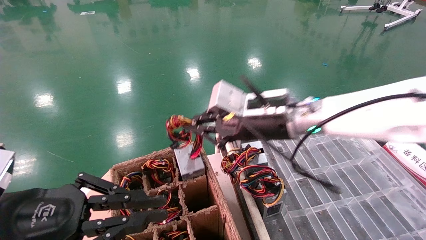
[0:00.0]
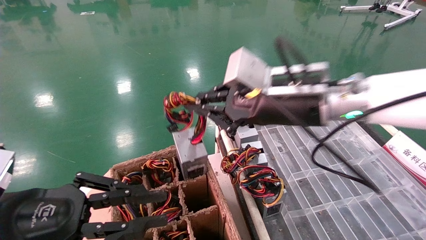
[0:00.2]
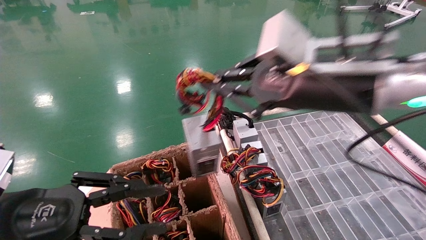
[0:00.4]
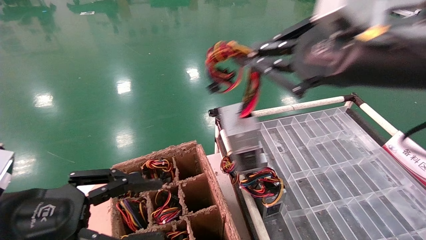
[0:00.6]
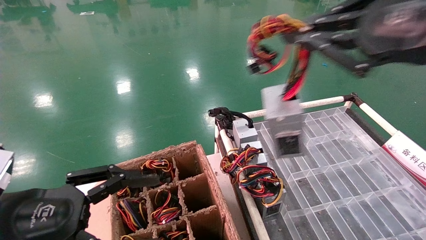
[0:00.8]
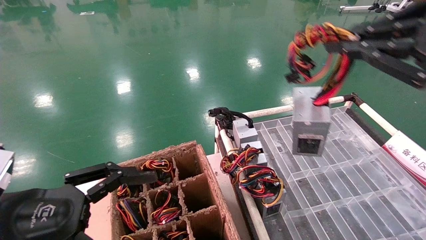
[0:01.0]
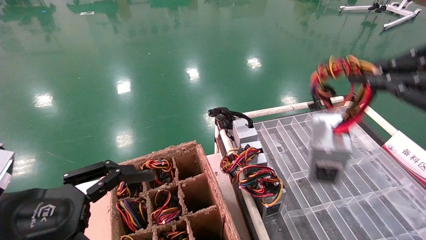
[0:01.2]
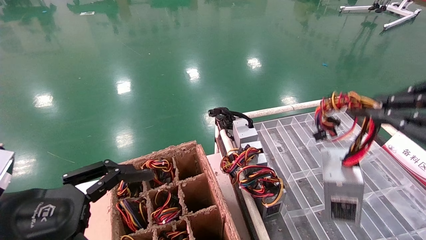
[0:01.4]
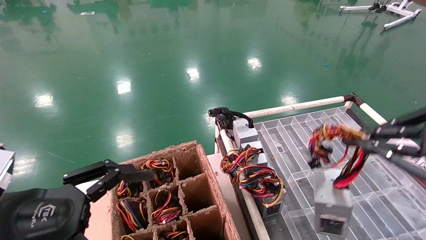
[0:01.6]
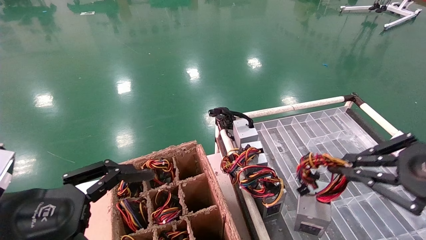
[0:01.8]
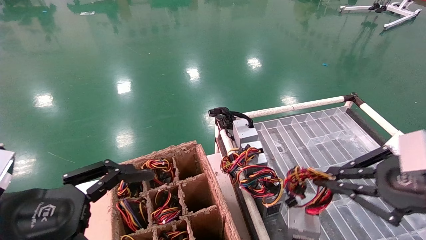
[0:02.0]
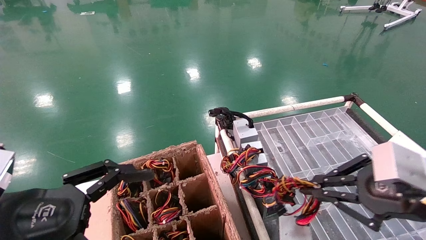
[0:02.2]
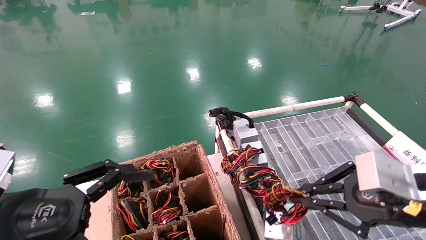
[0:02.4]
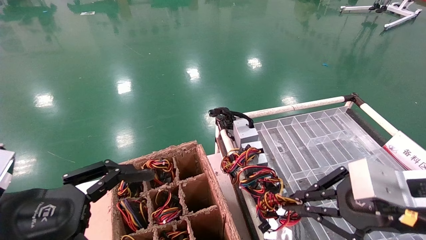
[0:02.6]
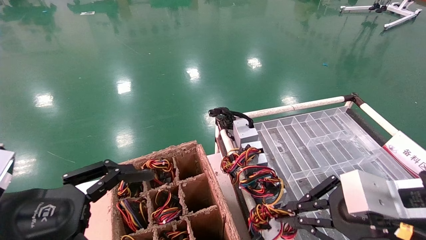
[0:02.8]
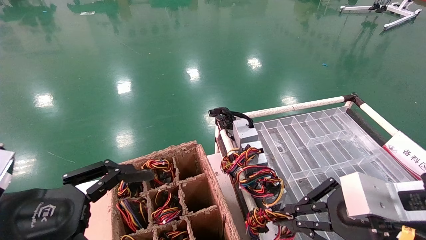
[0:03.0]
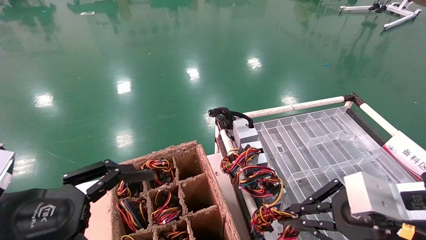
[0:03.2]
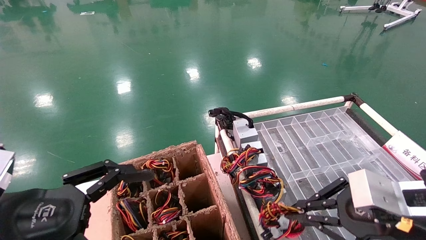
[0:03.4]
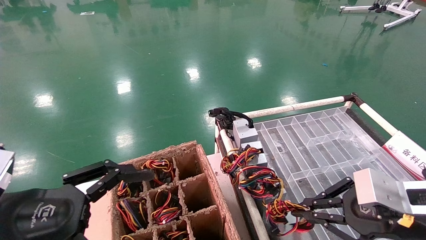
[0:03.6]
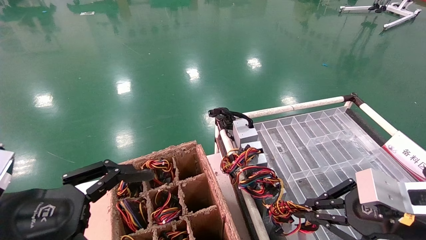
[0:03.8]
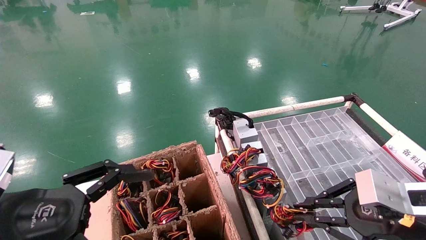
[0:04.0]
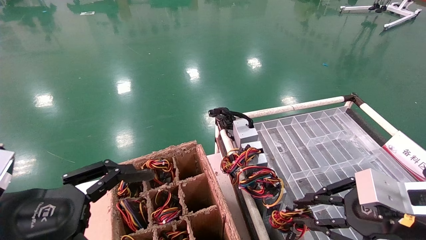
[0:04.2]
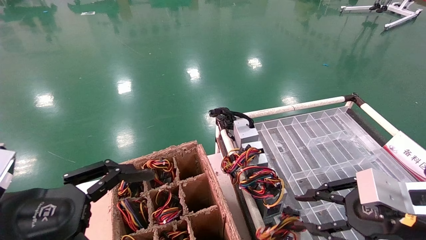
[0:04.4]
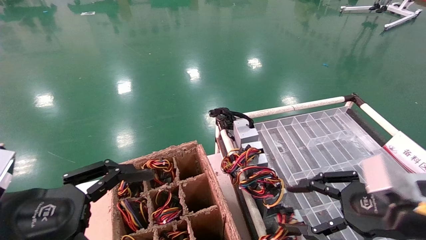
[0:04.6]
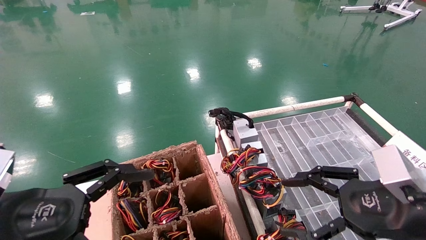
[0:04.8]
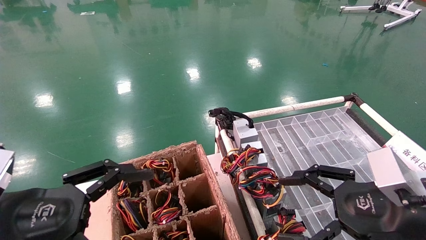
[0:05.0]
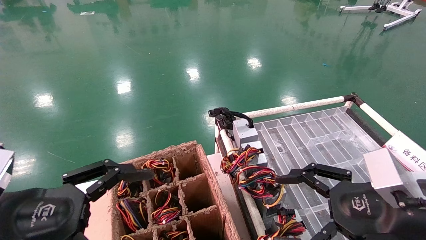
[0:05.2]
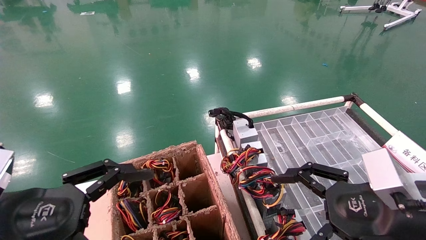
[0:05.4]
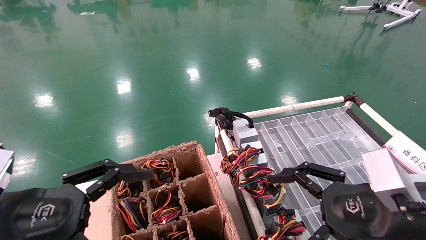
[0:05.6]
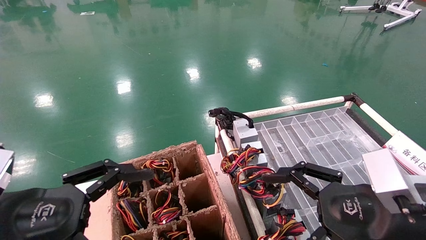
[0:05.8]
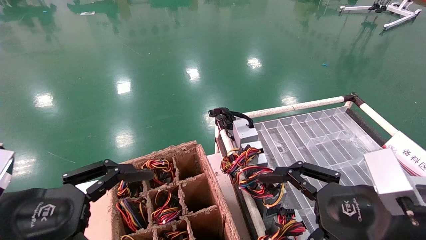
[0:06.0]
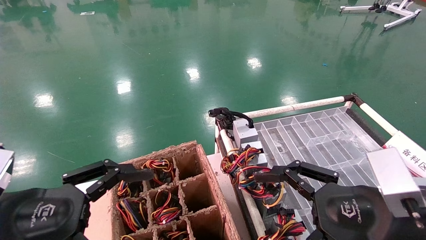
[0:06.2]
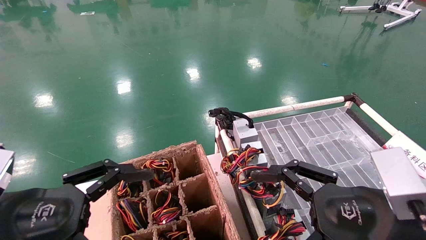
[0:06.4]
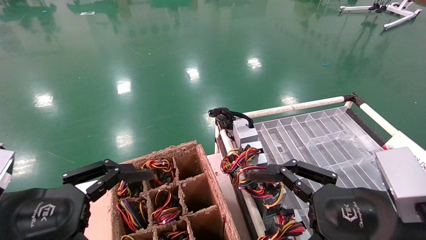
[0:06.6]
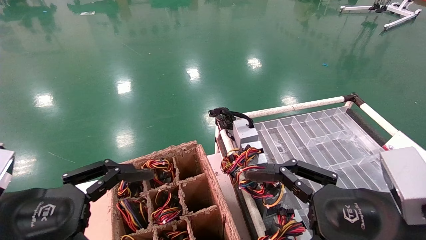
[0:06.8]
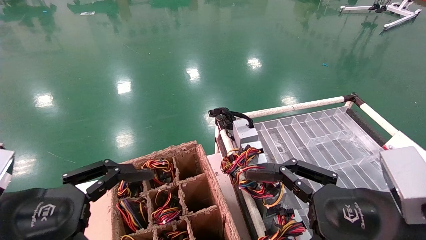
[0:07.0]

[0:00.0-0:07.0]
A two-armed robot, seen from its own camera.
Step, 0:00.0 to 0:04.2: Place the power supply on the operating table.
0:00.0 to 0:01.4: The left gripper opens its fingers. Meanwhile the right gripper goes approximately 30 cm to the right and backward.
0:01.4 to 0:02.8: The right gripper shifts some 15 cm downward, to the left and forward.
0:02.8 to 0:04.2: The right gripper moves some 5 cm.
0:04.2 to 0:05.6: The right gripper changes place by roughly 5 cm, and opens up.
0:05.6 to 0:07.0: The grippers stay close to where they were, moving slightly.
